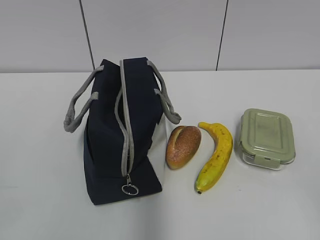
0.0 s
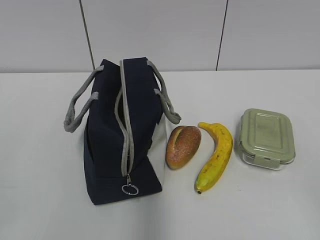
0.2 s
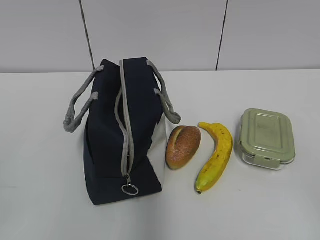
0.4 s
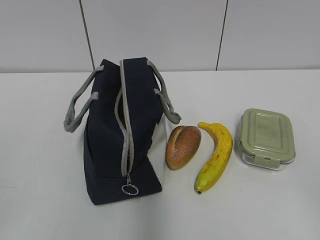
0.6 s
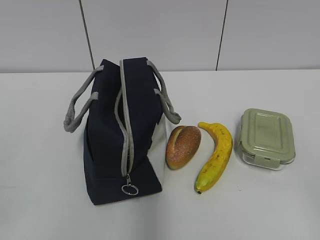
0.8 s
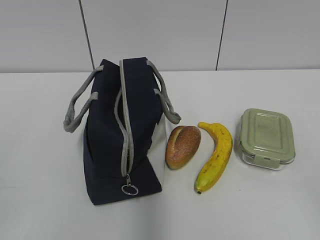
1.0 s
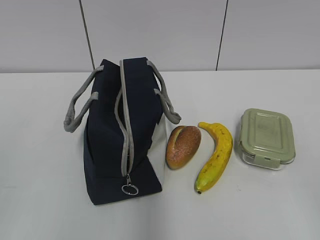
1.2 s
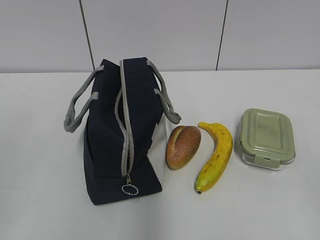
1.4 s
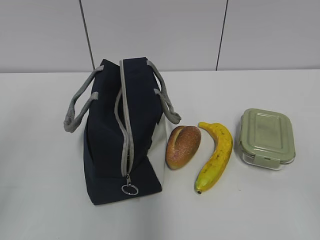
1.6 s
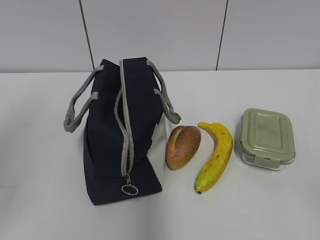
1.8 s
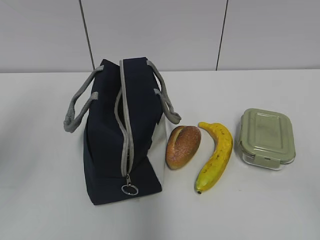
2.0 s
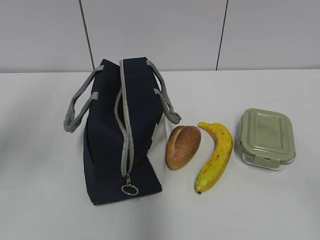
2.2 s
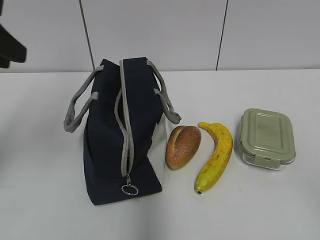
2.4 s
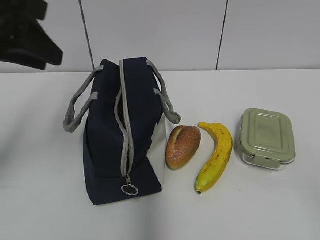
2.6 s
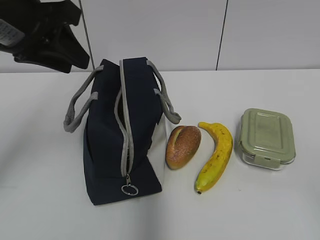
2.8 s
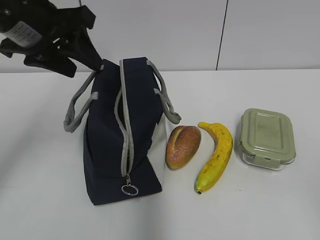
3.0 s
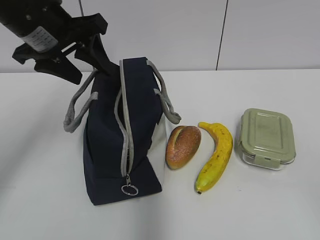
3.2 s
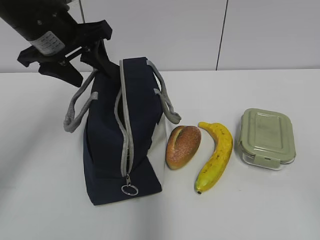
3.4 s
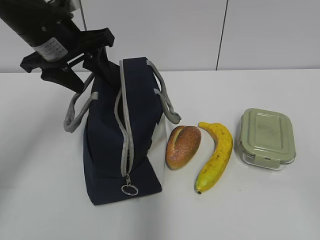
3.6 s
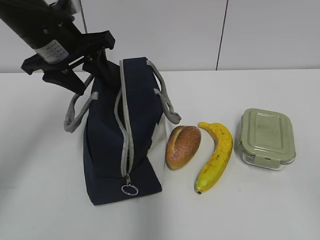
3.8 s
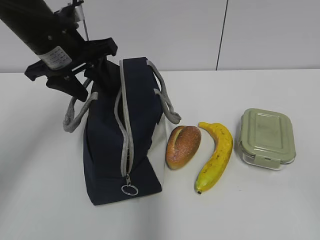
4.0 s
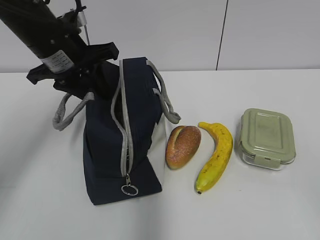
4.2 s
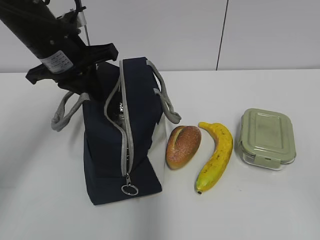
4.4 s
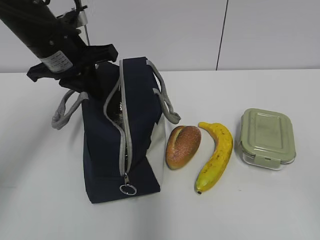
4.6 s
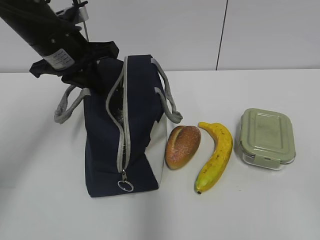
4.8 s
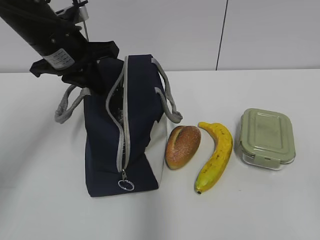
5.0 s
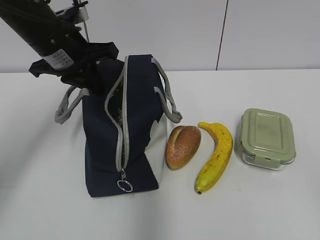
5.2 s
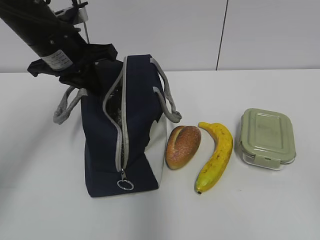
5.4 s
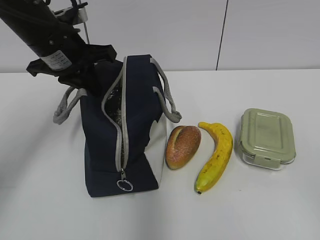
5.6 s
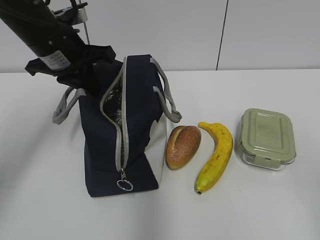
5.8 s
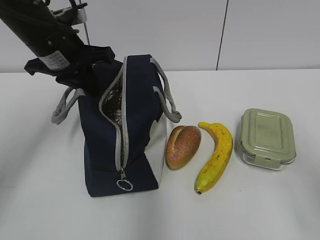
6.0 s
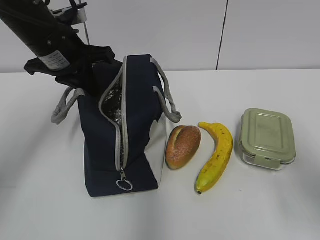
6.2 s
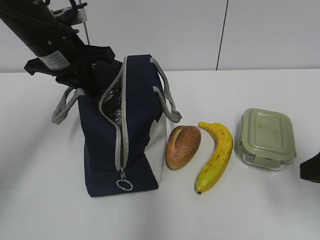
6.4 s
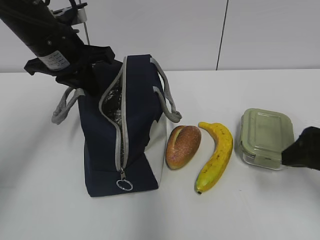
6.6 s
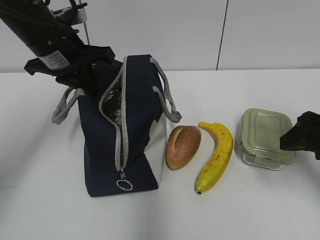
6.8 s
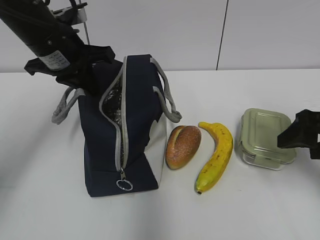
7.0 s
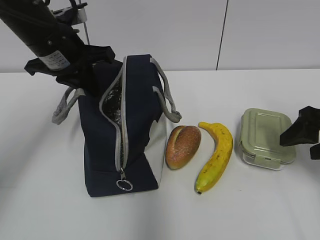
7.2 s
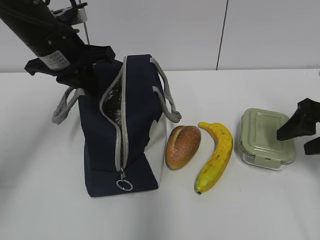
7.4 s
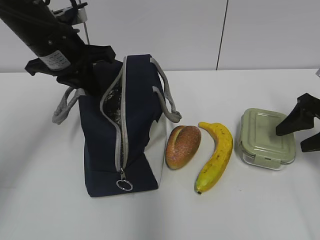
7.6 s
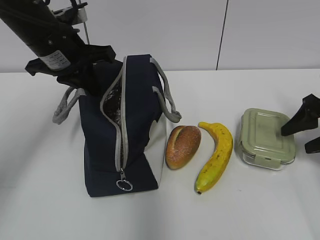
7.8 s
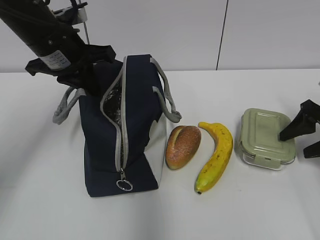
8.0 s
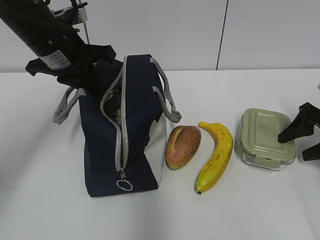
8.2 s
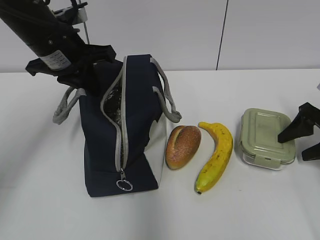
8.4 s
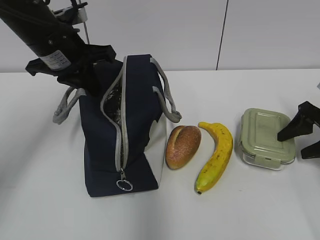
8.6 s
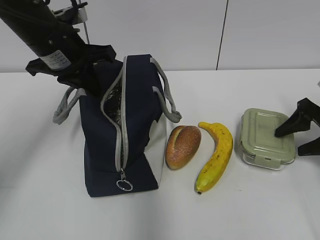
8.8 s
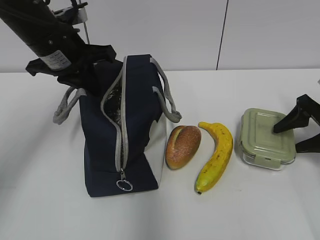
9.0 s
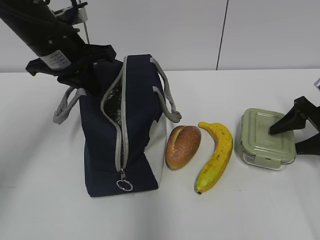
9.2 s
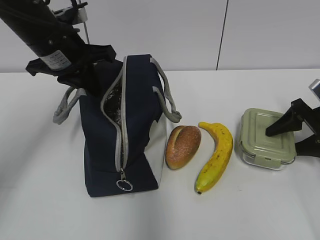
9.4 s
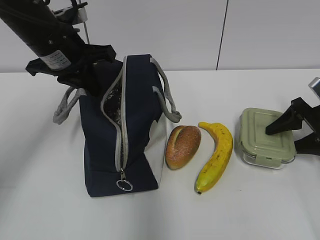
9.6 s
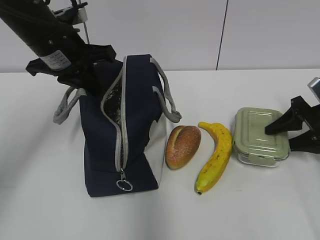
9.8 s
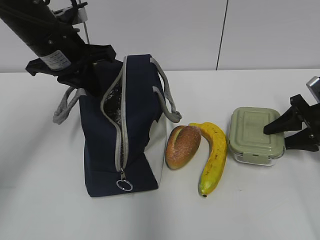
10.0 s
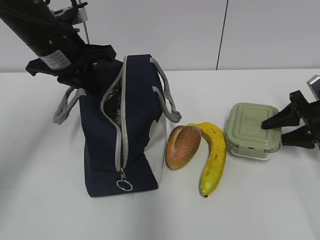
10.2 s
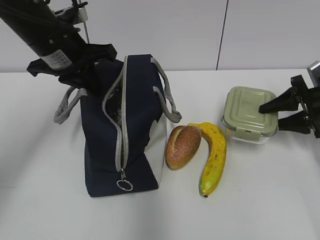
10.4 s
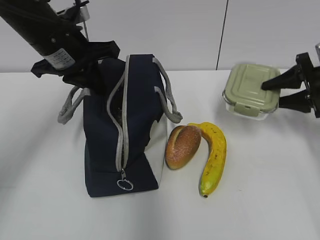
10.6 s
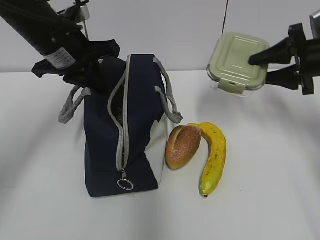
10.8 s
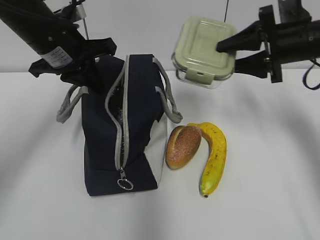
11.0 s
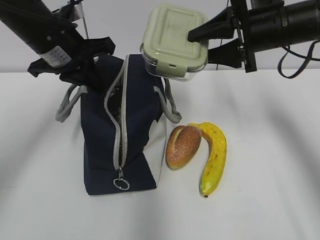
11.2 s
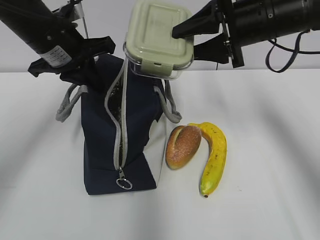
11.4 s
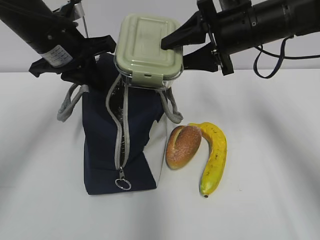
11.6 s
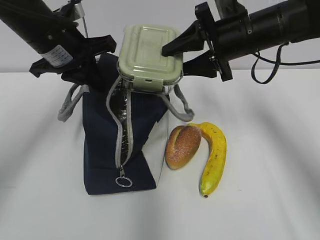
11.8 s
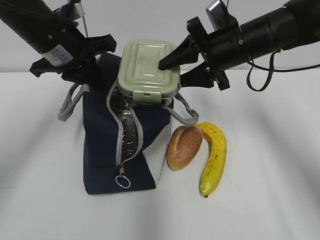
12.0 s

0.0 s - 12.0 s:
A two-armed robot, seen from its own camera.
Step, 0.0 s - 9.8 s: Grab the lunch box with your right hand.
1.6 s - 3.0 s: The left gripper shifts approximately 25 cm forward and to the right.
3.0 s - 4.4 s: The left gripper heads downward, covering some 5 cm, and closes.
4.4 s - 6.0 s: The right gripper is displaced forward by about 10 cm.
6.0 s - 7.6 s: The right gripper travels forward and downward by some 25 cm.
7.6 s - 9.0 s: The grippers stay close to where they were, moving slightly.
9.0 s - 10.4 s: The grippers make only small movements.
10.4 s - 12.0 s: The right gripper heads to the left and upward, covering approximately 20 cm.

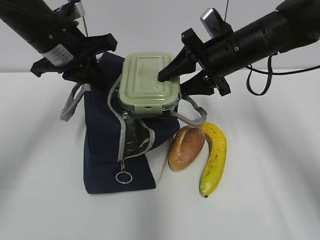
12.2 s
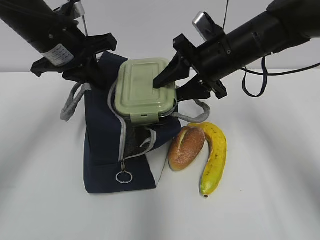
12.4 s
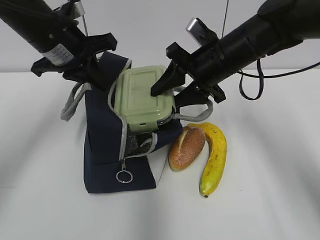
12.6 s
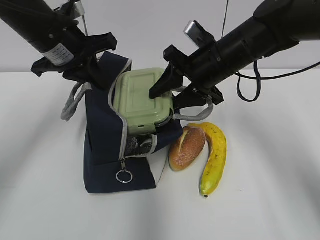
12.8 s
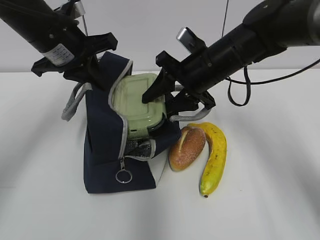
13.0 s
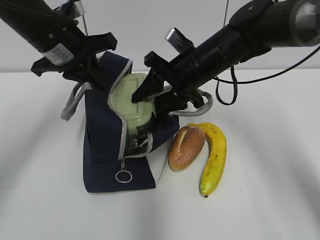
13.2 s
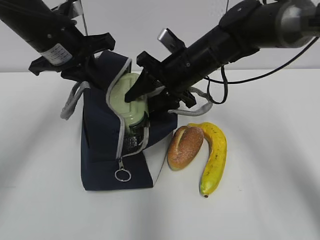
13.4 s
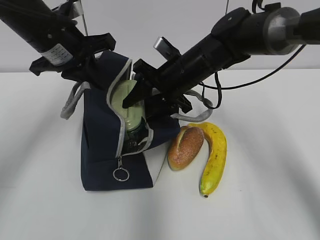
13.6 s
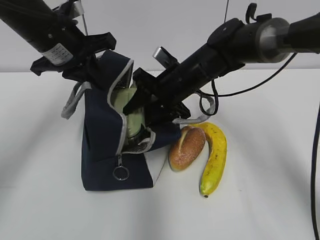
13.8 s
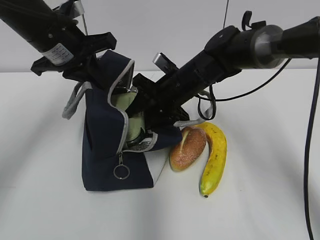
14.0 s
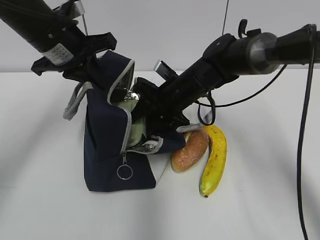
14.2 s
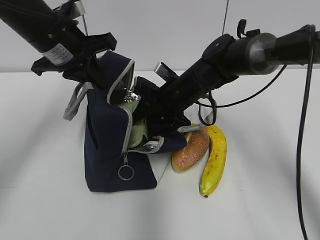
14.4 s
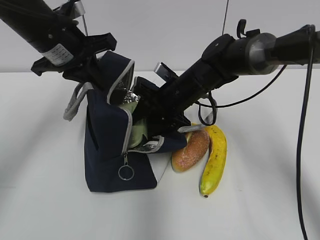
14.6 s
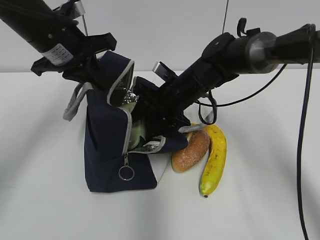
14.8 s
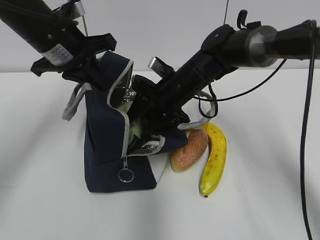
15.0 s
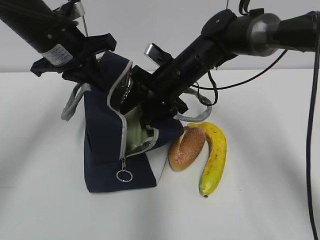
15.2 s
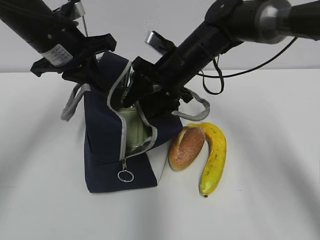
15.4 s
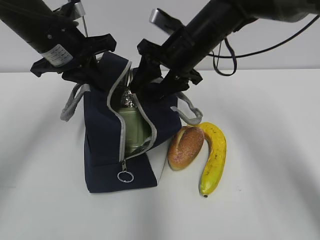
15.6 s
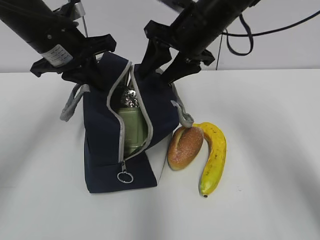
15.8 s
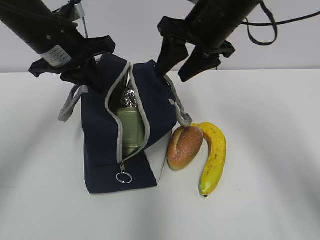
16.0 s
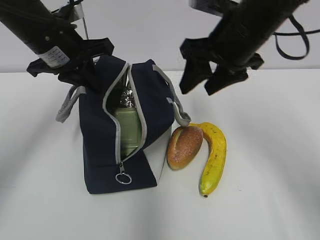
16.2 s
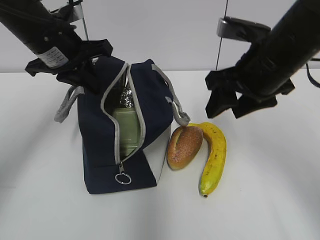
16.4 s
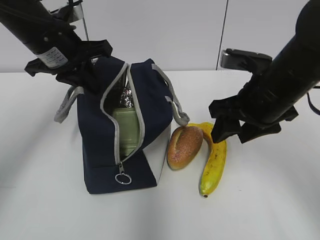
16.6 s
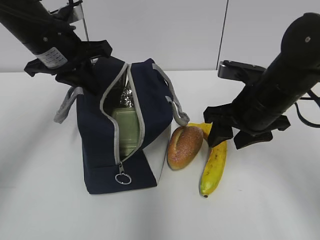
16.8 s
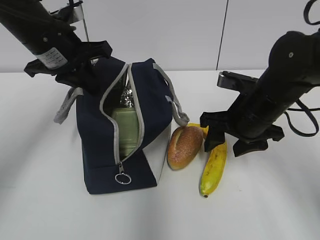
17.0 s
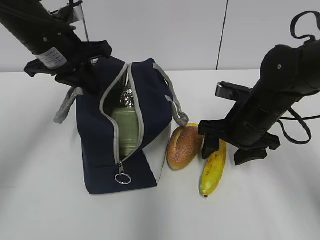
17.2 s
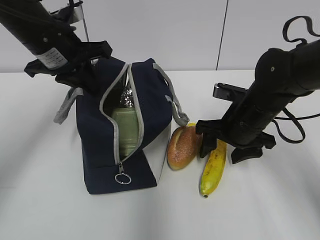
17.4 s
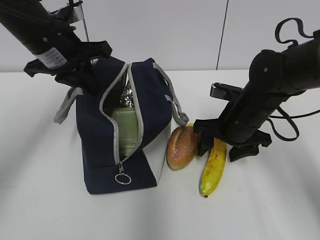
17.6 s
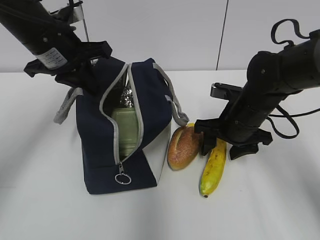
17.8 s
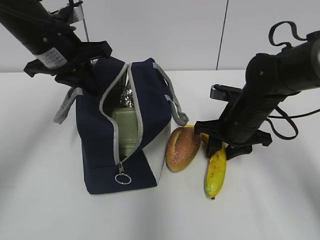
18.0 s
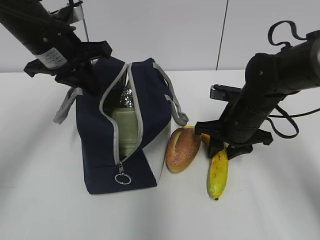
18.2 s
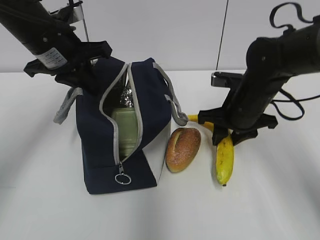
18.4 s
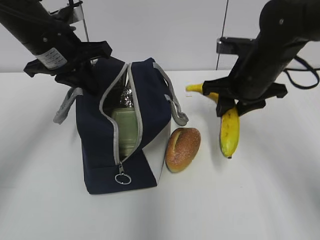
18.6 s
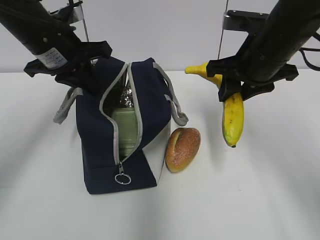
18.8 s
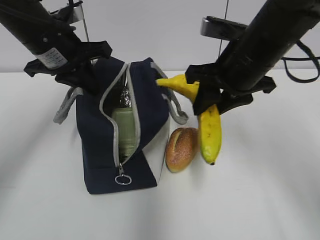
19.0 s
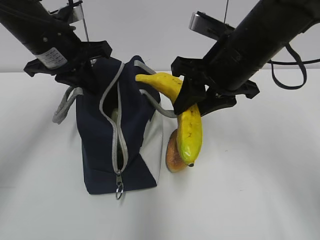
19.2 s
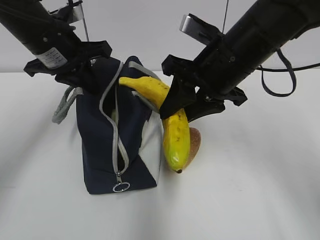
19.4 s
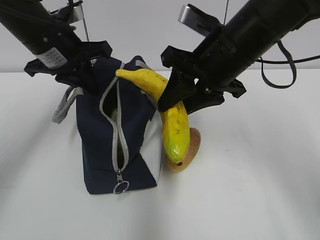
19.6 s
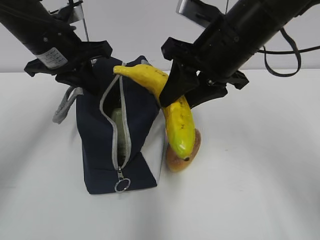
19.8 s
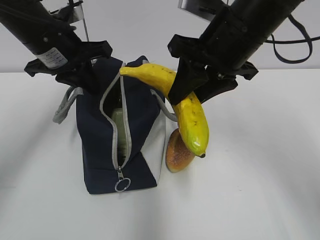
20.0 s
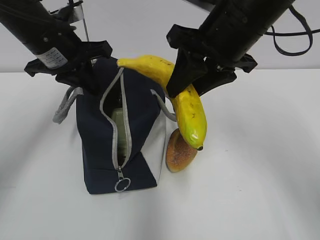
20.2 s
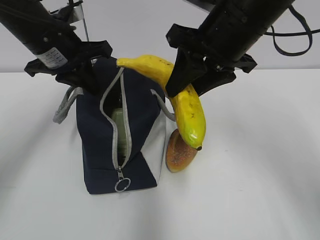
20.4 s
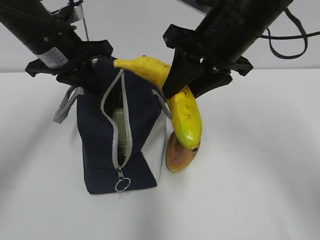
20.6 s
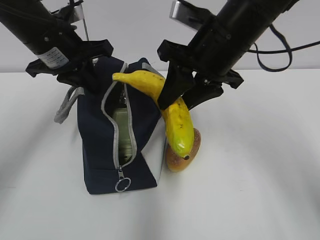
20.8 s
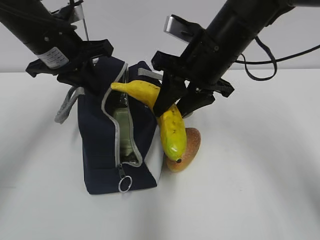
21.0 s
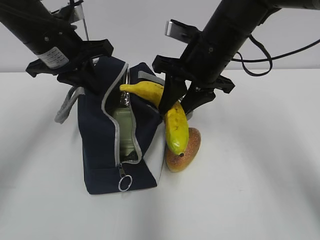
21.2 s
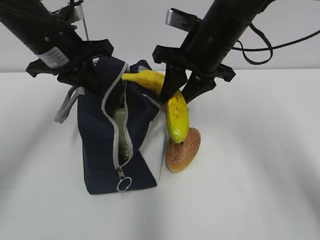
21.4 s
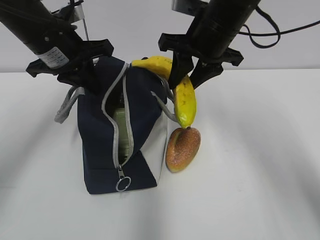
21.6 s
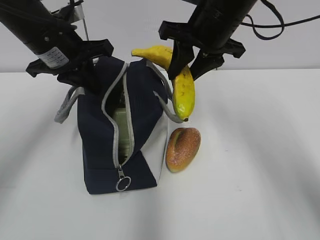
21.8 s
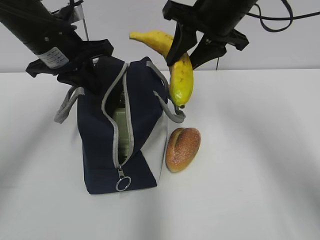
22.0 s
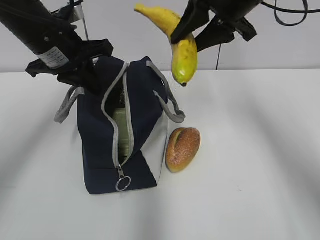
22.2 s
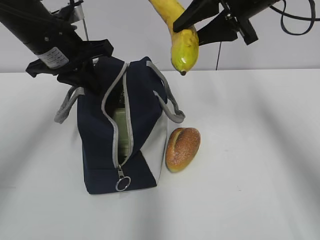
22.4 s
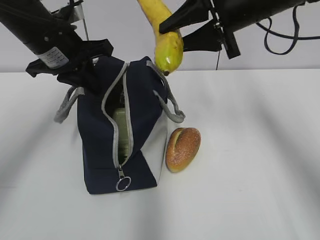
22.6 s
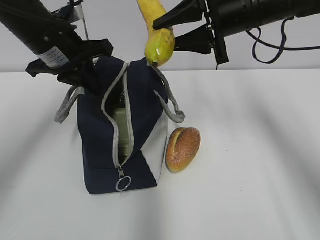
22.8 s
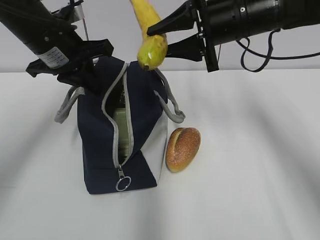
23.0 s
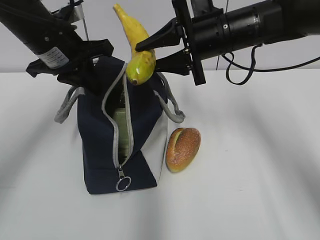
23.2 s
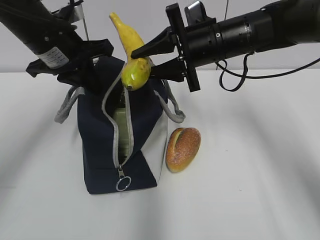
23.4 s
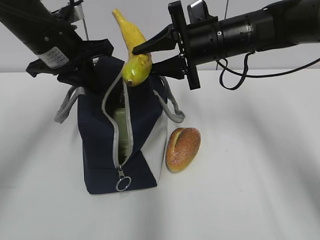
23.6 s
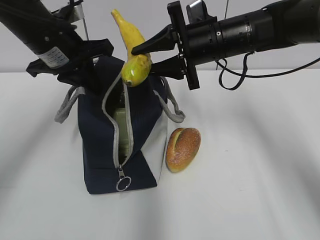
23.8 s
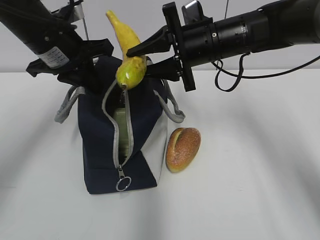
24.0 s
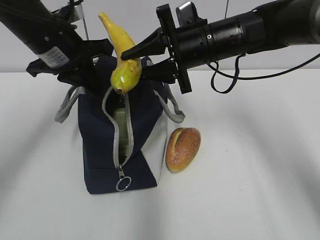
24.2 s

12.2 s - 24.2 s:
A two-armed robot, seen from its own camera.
Step, 12.2 s - 15.0 s: Place it into the bag with your right hand.
Step, 15.2 s - 18.0 s: Grab the banana with your right hand.
12.2 s - 13.8 s: The right gripper moves to the left and downward, roughly 10 cm.
13.8 s - 15.2 s: There are only small adjustments of the grippers.
15.2 s - 16.6 s: The right gripper goes roughly 15 cm backward and to the right.
16.6 s - 18.2 s: The right gripper travels downward and forward by roughly 10 cm.
18.2 s - 19.8 s: The right gripper shifts approximately 15 cm upward.
19.8 s - 21.2 s: The right gripper moves about 5 cm.
21.2 s - 22.6 s: The right gripper travels upward and to the right by about 10 cm.
22.6 s - 24.2 s: The right gripper shifts some 10 cm downward and to the left.
